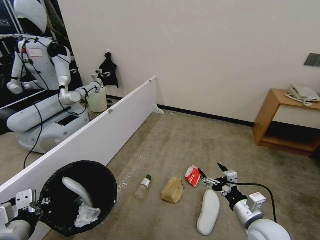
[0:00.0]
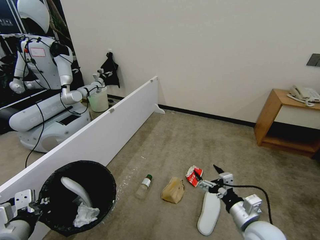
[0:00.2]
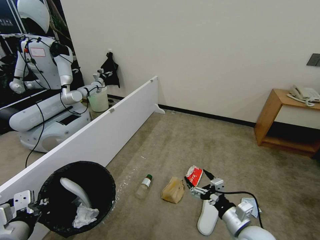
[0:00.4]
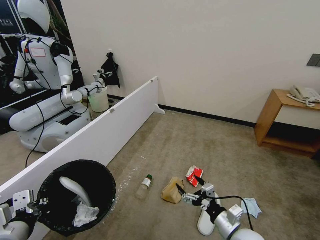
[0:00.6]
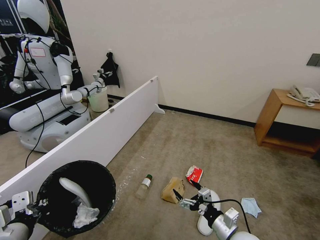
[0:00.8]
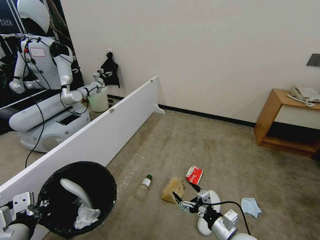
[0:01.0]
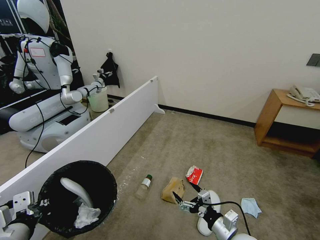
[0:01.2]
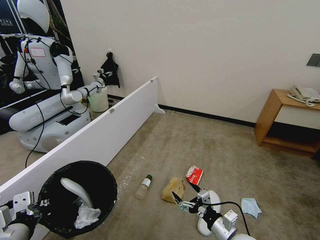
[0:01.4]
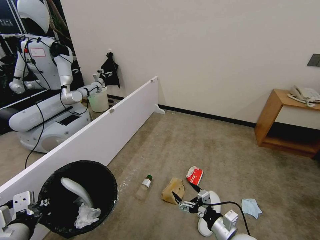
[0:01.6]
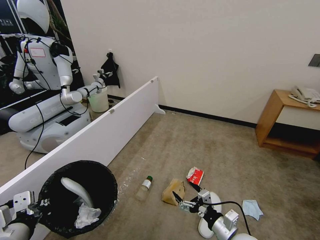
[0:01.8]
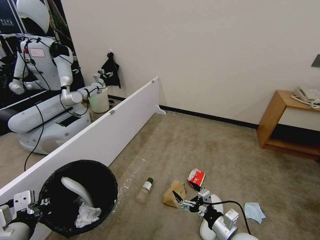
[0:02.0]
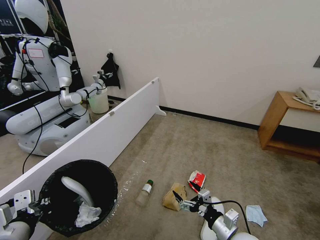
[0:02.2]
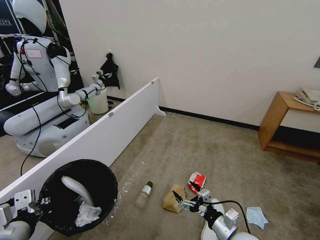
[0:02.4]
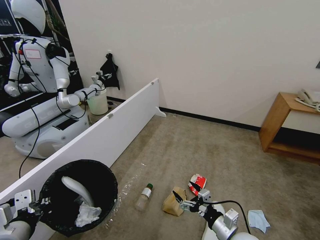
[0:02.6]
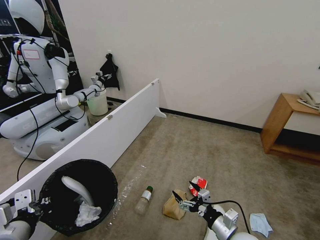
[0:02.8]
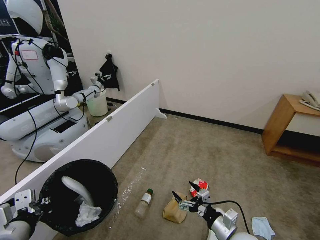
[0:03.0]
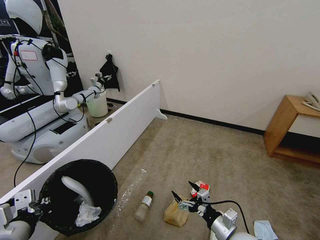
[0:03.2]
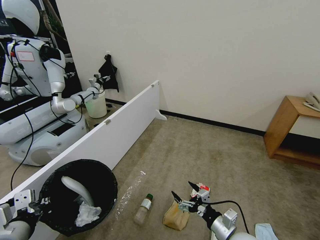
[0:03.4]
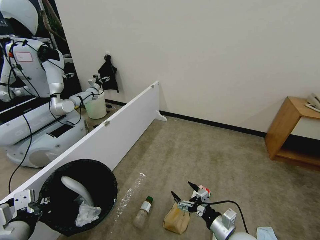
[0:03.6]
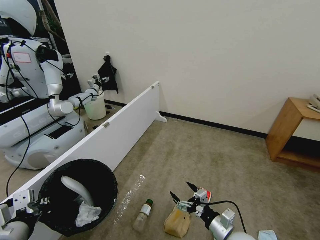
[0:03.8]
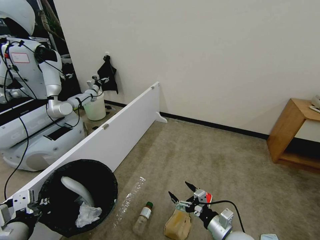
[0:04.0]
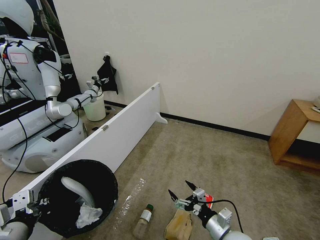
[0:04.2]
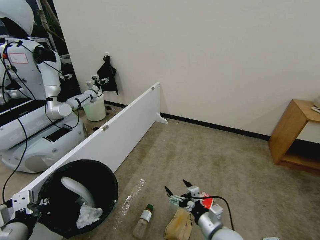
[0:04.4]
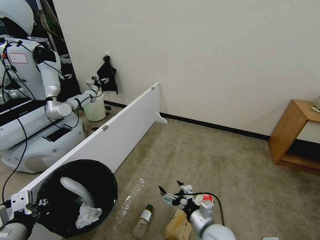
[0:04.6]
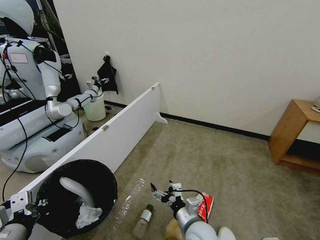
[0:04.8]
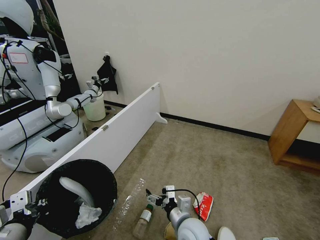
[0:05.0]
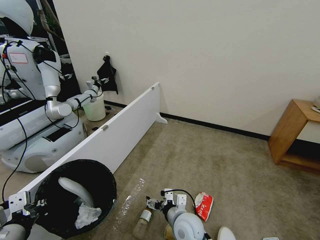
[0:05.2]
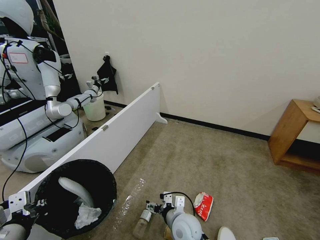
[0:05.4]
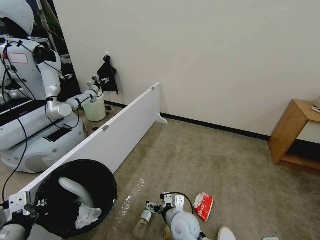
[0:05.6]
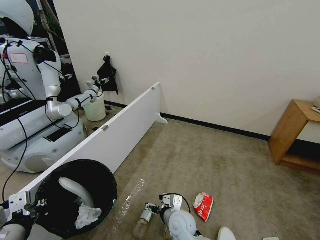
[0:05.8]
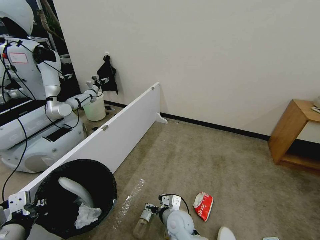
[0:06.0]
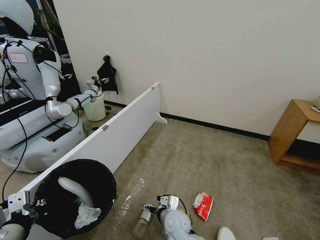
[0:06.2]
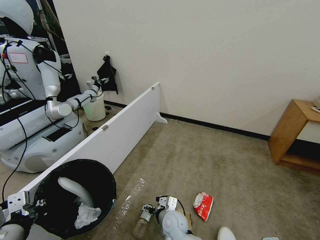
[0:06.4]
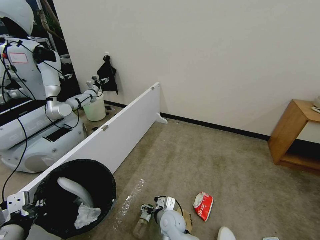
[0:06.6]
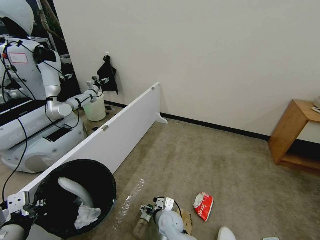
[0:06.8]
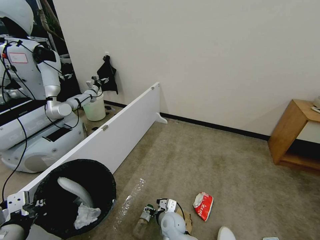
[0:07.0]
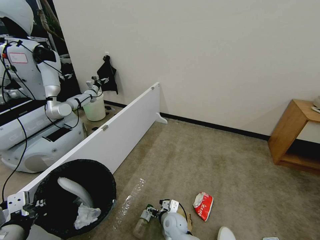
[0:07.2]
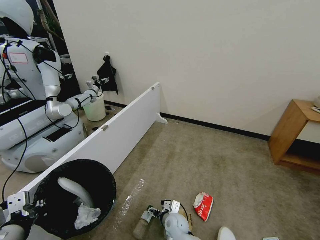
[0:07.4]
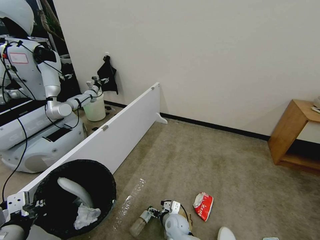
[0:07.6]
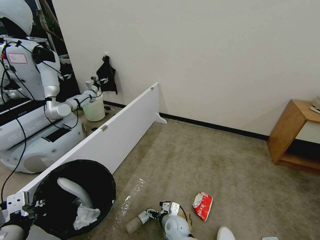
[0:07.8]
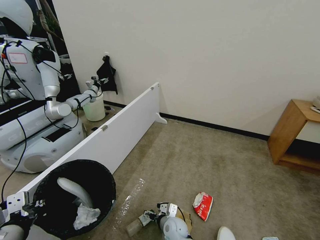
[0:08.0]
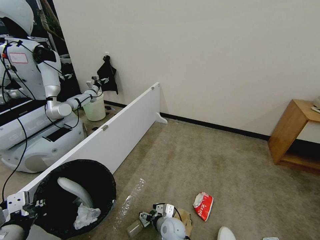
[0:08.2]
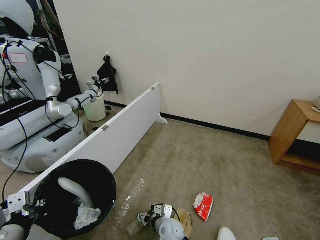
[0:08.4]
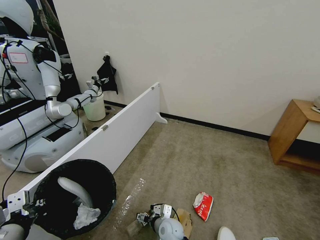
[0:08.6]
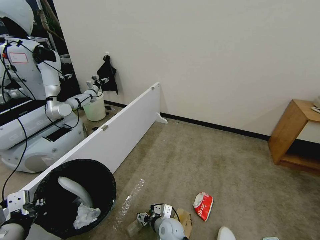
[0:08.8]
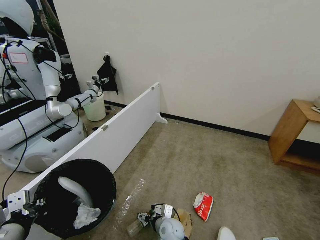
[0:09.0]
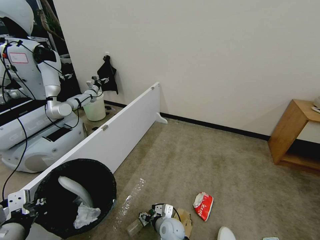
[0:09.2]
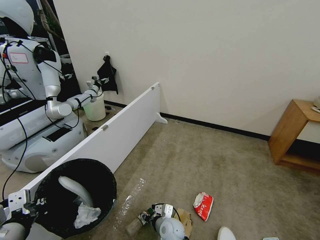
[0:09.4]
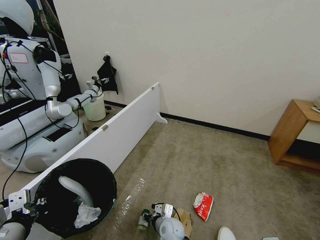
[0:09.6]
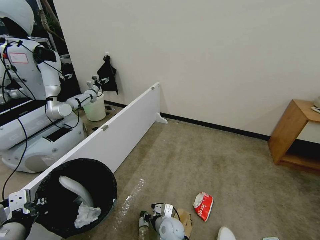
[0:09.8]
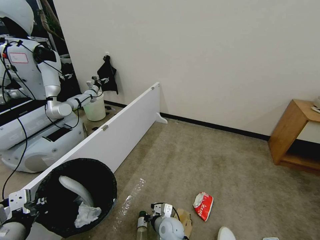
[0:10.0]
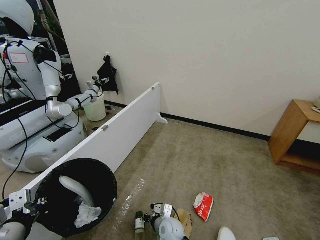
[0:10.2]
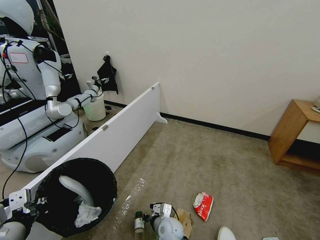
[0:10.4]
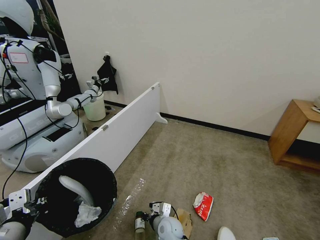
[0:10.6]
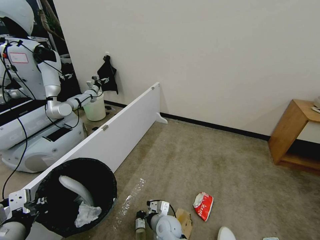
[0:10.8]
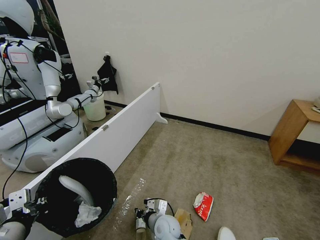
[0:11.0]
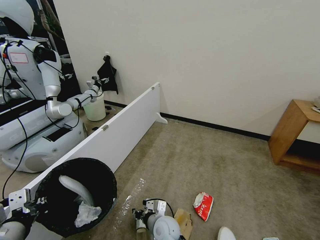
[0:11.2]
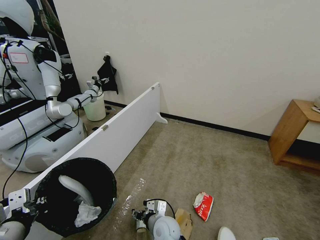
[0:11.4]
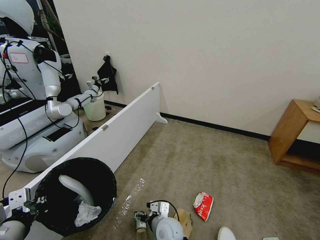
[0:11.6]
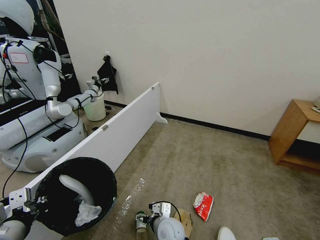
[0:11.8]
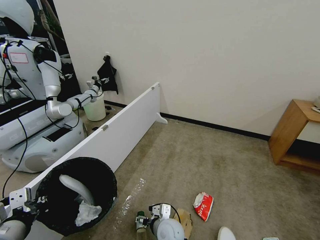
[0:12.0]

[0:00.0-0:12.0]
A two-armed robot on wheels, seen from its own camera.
Task of the whole recording: Pick up the trash bin, then pick up the garbage from the floor and place it into the trash bin.
0:00.0 to 0:01.6: The right gripper goes roughly 5 cm downward.
0:04.4 to 0:06.0: The right gripper moves to the left and forward, approximately 15 cm.
0:06.0 to 0:07.6: The right gripper goes approximately 10 cm downward.
0:07.6 to 0:09.0: There are only small adjustments of the grippers.
0:09.0 to 0:10.4: The right gripper closes.
0:10.4 to 0:12.0: The right gripper is displaced upward by about 5 cm, and opens.

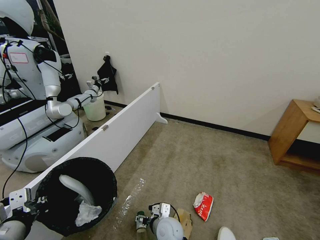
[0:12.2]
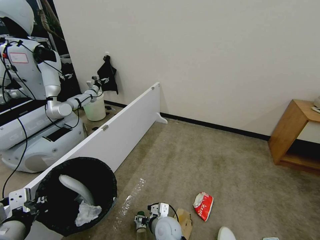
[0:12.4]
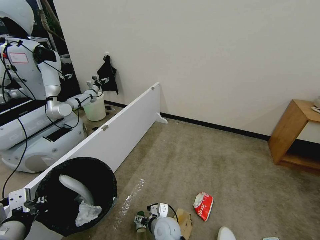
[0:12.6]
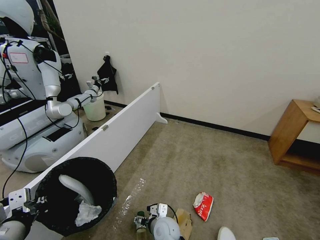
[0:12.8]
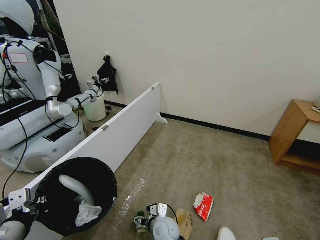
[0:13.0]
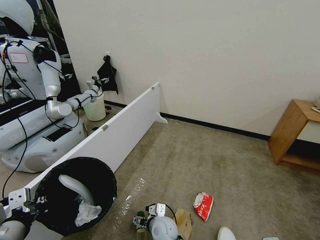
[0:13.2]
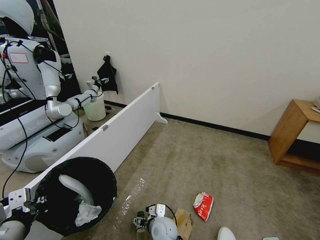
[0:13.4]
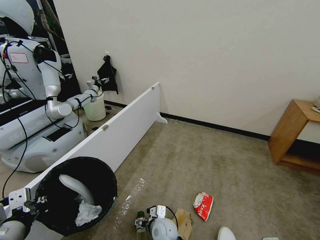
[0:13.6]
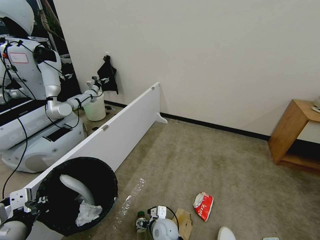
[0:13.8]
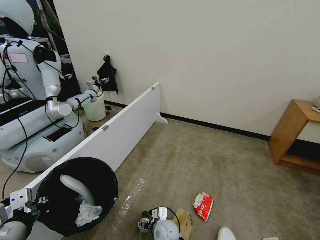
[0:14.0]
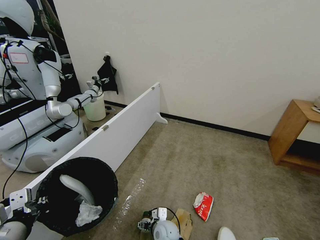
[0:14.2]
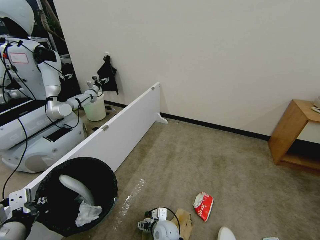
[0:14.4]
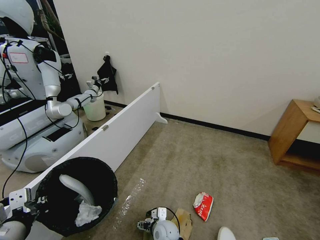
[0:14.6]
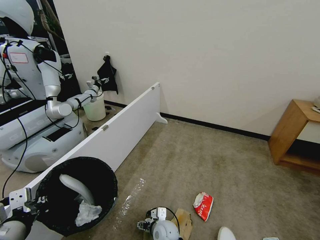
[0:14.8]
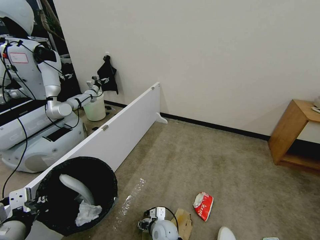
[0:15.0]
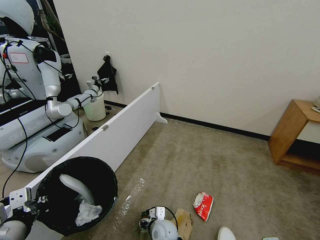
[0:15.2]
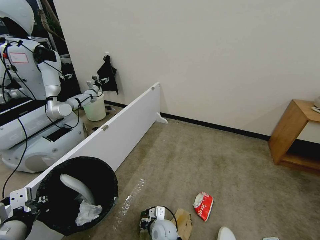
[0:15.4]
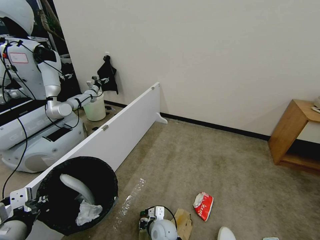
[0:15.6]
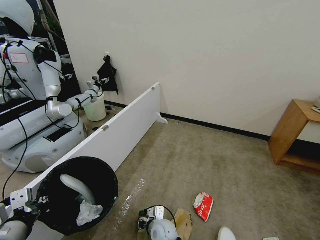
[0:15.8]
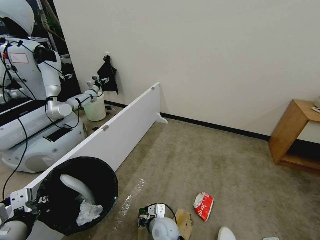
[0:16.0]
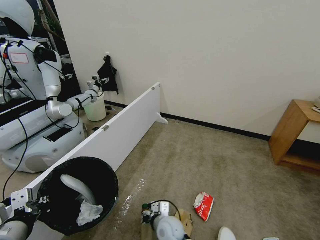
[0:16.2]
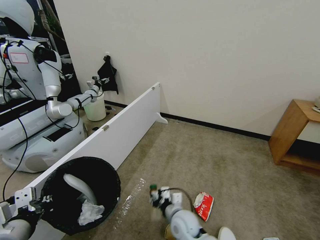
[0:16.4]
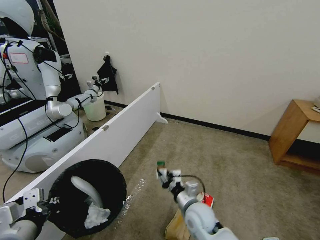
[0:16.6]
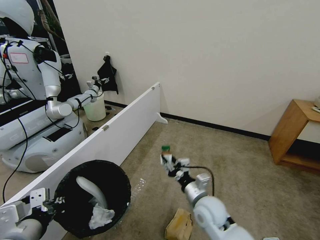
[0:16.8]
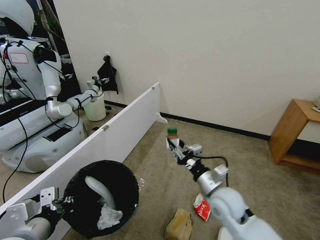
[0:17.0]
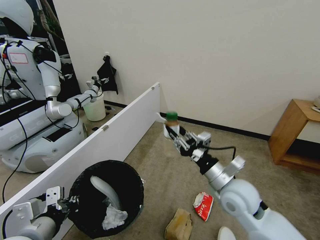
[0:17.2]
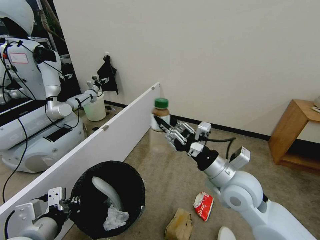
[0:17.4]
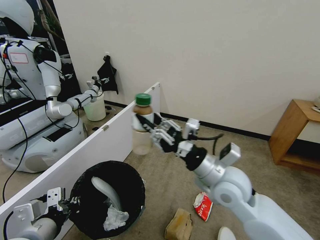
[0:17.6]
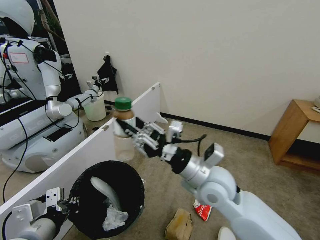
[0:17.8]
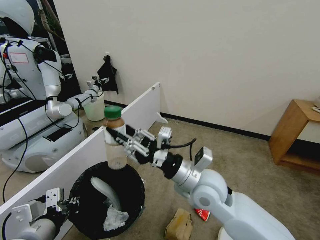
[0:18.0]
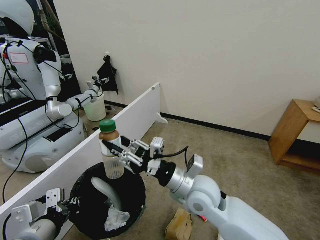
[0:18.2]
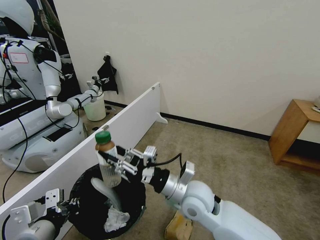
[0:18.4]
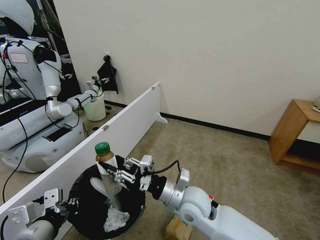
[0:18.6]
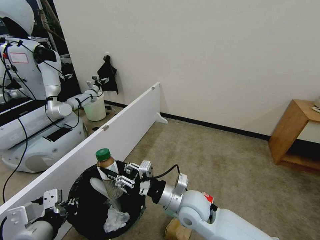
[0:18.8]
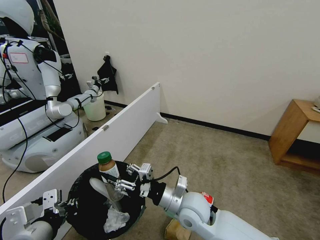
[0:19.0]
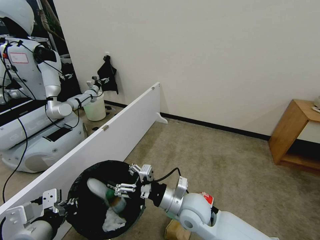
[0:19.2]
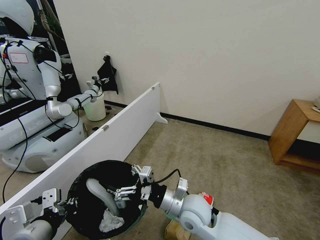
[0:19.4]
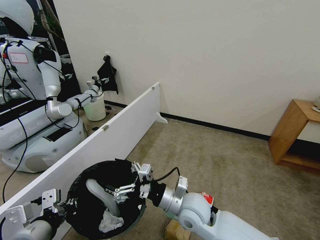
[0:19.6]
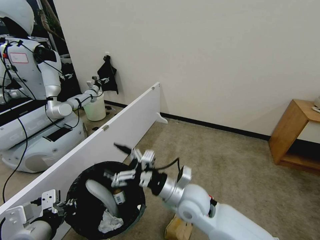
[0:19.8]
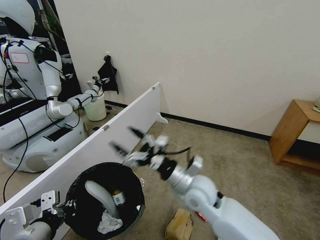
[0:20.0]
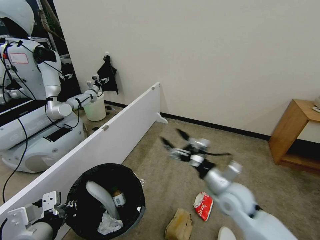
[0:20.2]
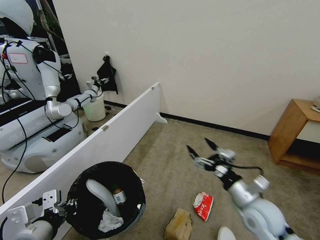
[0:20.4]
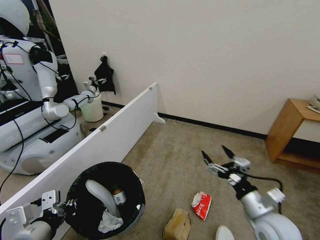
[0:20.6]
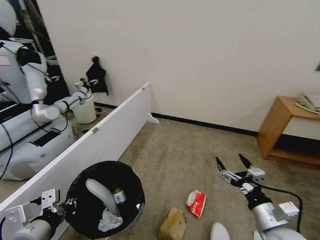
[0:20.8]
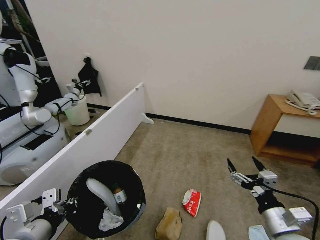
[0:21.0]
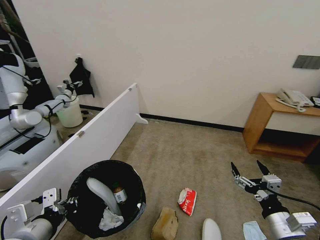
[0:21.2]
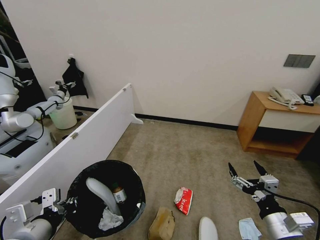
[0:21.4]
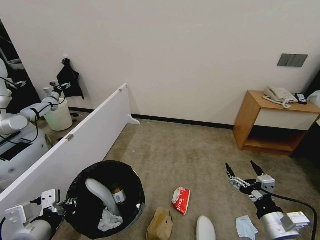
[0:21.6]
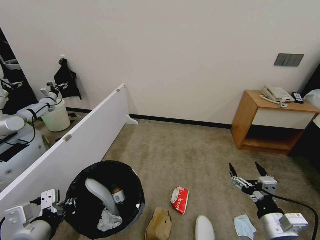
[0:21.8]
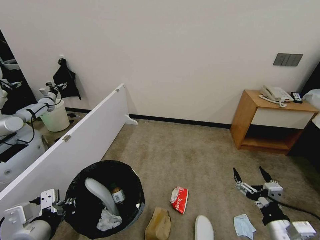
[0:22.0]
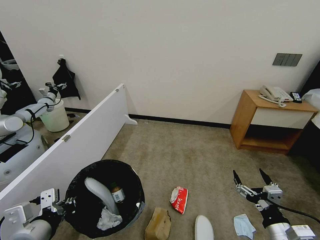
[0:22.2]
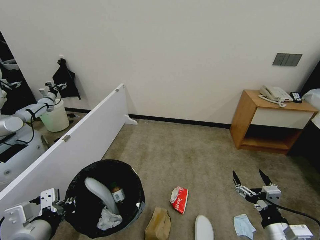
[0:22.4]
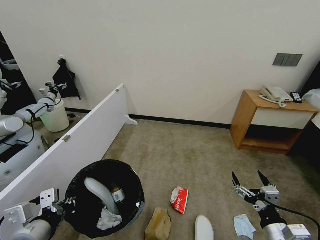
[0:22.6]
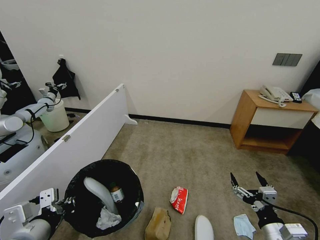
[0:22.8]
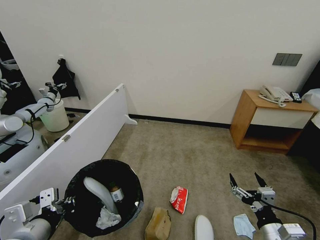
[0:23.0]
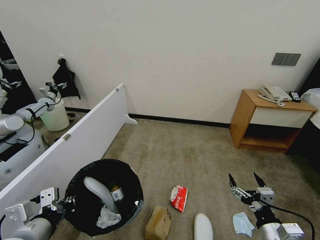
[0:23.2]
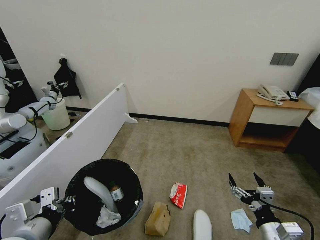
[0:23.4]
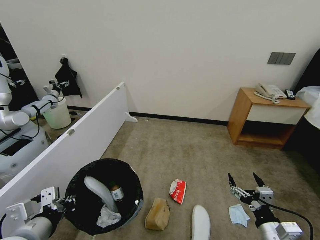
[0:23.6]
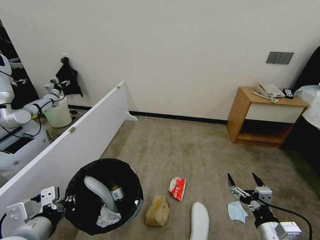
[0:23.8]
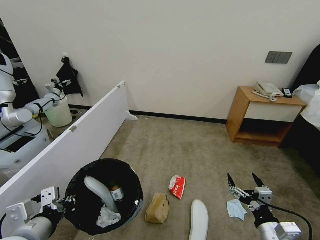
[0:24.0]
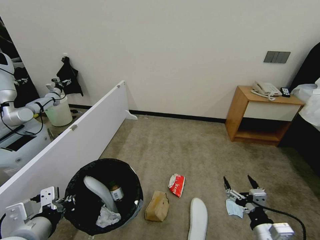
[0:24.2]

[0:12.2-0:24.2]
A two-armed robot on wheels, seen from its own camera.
Task of the whole recording: Pick up the trash bin, then pick up the garbage from the floor and place it into the trash bin.
0:12.2 to 0:13.8: The grippers make only small movements.
0:15.2 to 0:16.6: The right gripper travels upward and to the right by about 15 cm.
0:16.6 to 0:18.2: The right gripper is displaced upward by about 15 cm.
0:18.2 to 0:19.8: The right gripper is displaced downward by about 5 cm, and opens.
0:19.8 to 0:21.2: The right gripper shifts some 30 cm to the right and backward.
